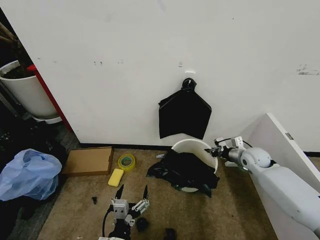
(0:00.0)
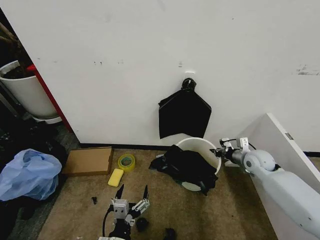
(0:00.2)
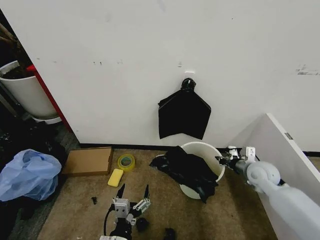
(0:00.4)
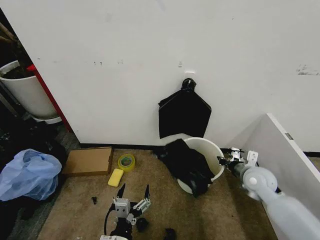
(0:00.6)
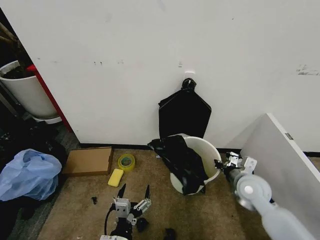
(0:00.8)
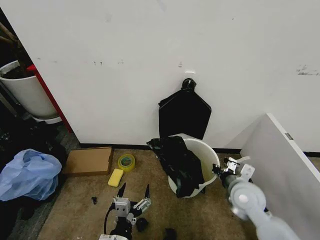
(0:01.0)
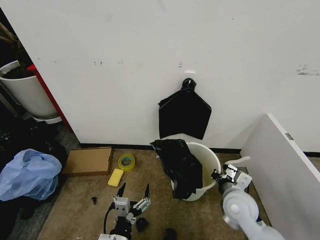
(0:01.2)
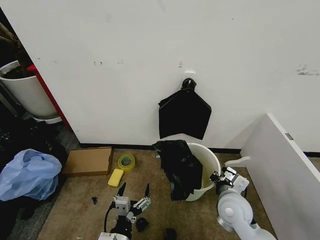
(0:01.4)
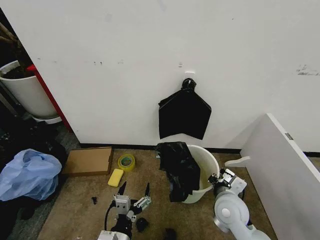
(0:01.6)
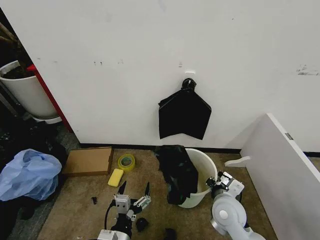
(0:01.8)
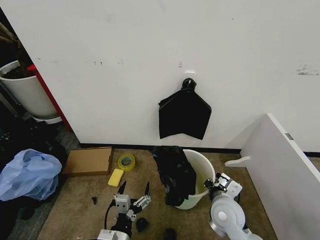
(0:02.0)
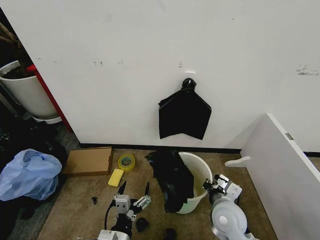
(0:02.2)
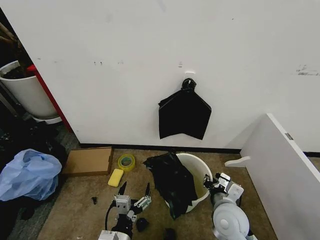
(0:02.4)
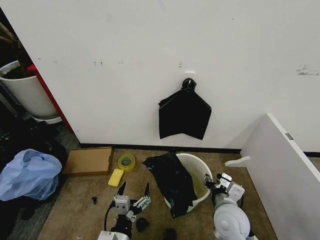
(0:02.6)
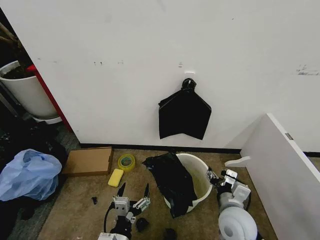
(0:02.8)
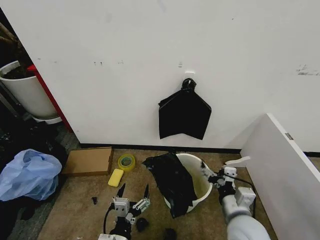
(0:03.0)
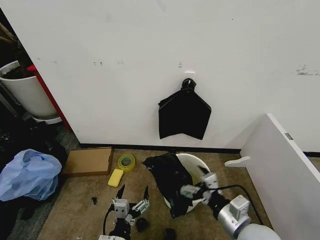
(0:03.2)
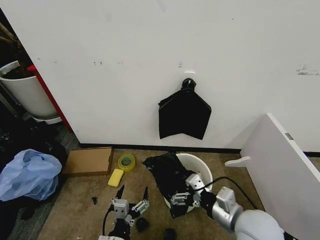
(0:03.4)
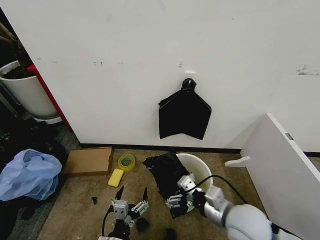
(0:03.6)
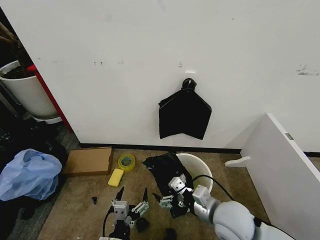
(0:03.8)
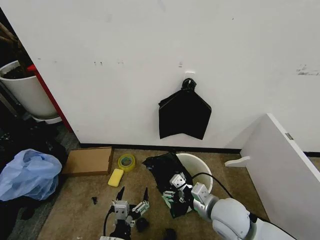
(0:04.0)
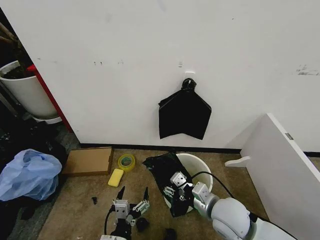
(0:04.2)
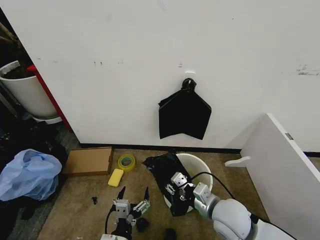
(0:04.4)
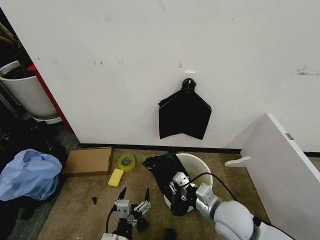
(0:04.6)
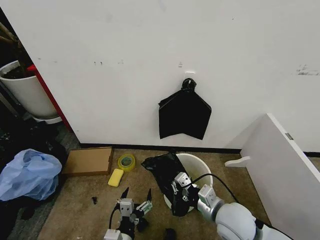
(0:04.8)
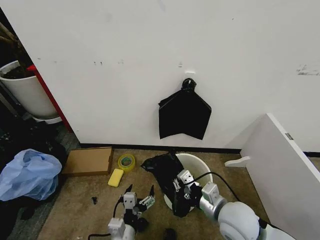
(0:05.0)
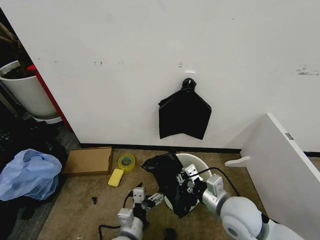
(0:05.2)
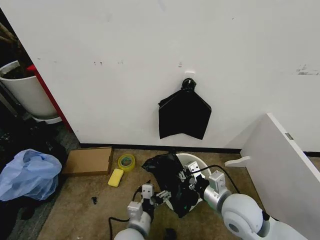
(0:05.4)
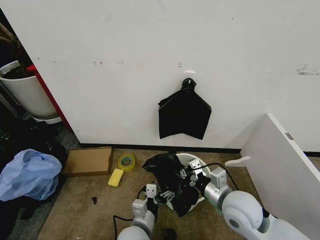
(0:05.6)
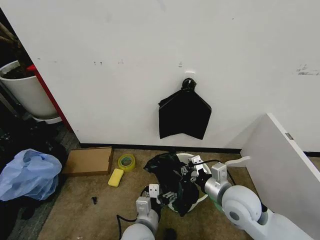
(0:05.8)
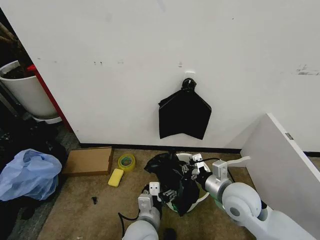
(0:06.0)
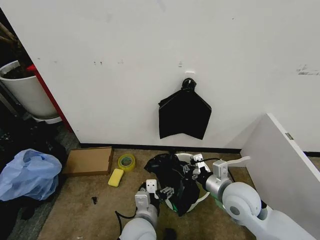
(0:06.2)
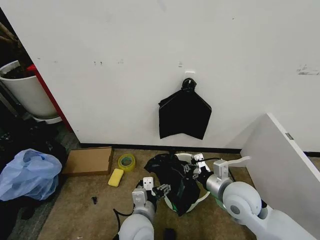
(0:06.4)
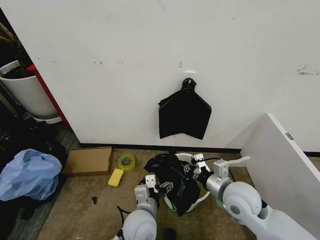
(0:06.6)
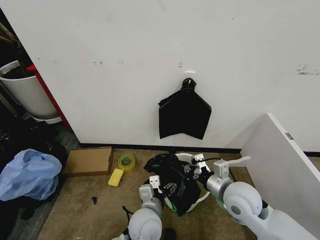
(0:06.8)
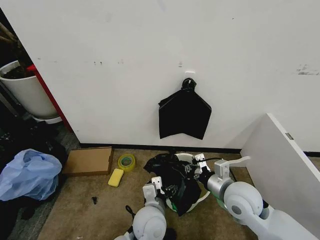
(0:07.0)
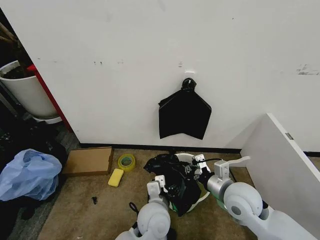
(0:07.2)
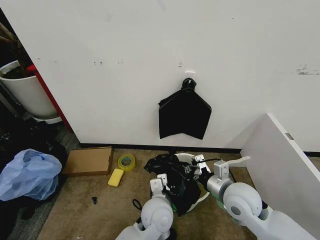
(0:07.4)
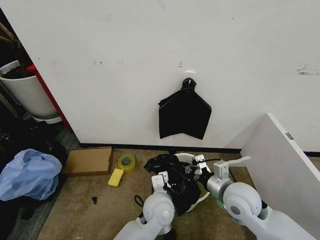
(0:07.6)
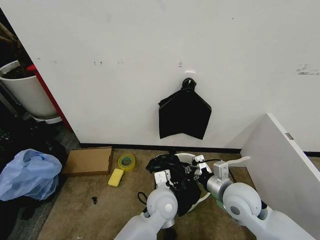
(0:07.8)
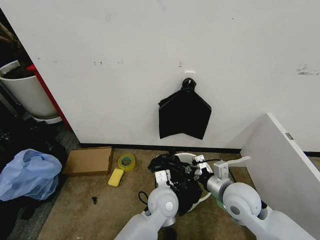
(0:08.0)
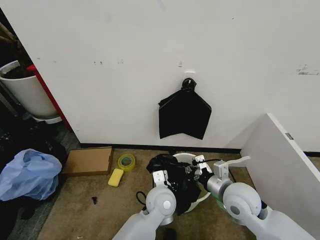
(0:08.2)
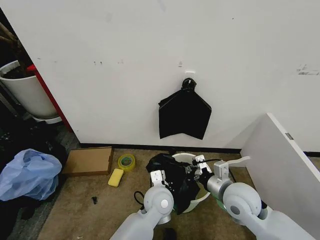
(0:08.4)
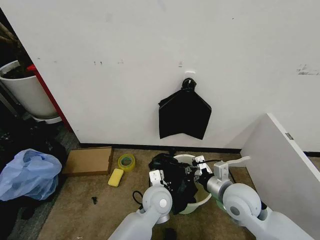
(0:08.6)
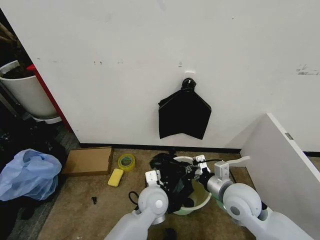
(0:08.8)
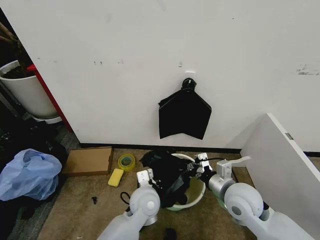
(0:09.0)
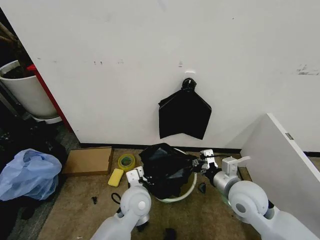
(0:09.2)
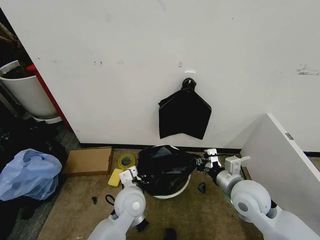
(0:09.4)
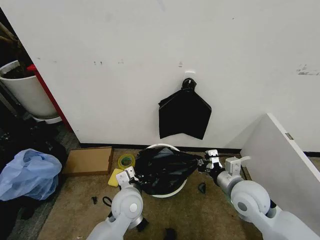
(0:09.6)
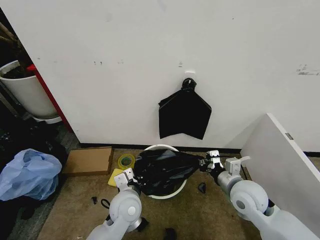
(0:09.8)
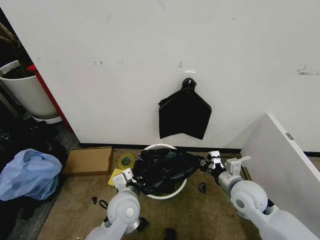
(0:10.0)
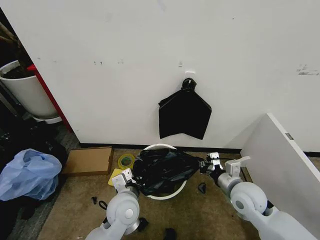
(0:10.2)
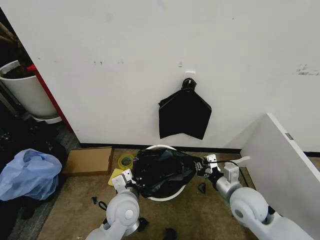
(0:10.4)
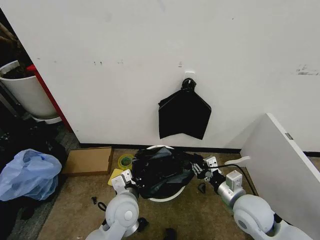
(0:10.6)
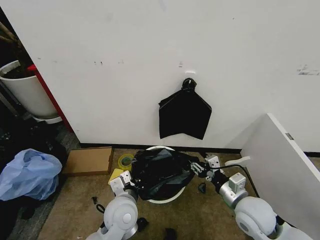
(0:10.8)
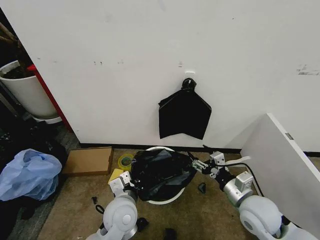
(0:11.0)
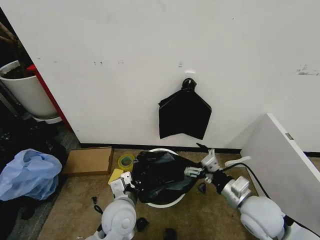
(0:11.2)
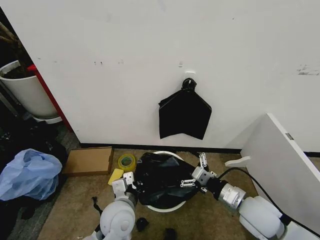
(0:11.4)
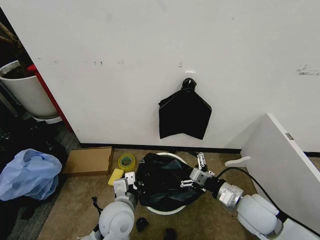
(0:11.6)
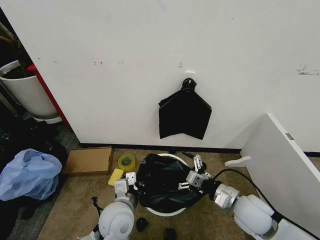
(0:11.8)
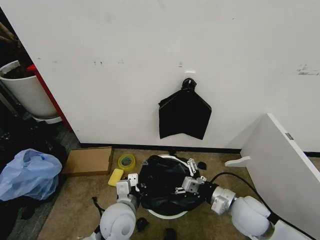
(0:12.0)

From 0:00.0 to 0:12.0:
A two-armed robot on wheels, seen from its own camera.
Task of the whole recording: Place the garbage bag over the trash bin.
From 0:00.0 to 0:01.6: The right gripper heads backward and to the left, covering approximately 25 cm.
From 0:01.6 to 0:03.0: The right gripper moves backward, approximately 5 cm, and opens.
From 0:03.0 to 0:04.4: The right gripper shifts by some 5 cm, and closes up.
From 0:04.4 to 0:06.0: The left gripper heads forward and to the right, covering about 10 cm. Meanwhile the right gripper shifts by about 5 cm.
From 0:06.0 to 0:07.6: The left gripper shifts roughly 10 cm forward and to the right.
From 0:07.6 to 0:09.0: The left gripper shifts by about 5 cm, and closes its fingers.
From 0:09.0 to 0:10.4: The left gripper goes about 5 cm to the left.
From 0:10.4 to 0:12.0: The right gripper opens its fingers.

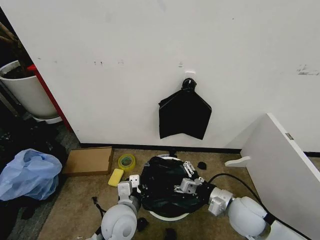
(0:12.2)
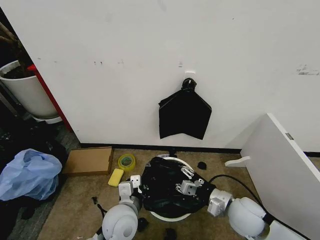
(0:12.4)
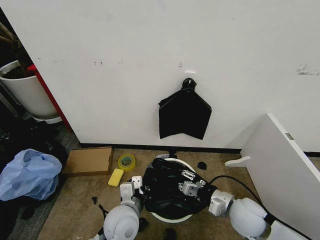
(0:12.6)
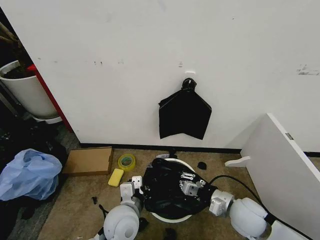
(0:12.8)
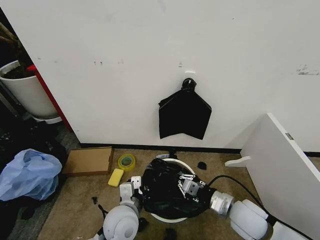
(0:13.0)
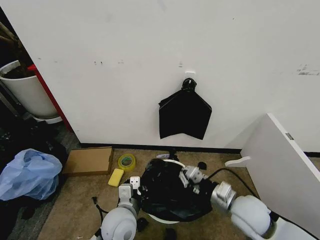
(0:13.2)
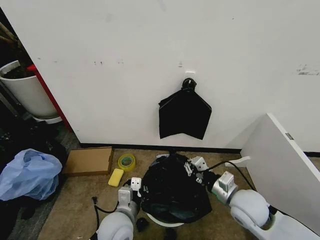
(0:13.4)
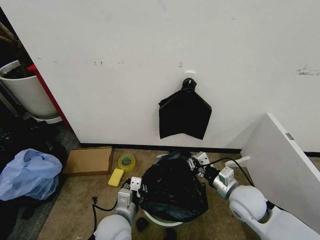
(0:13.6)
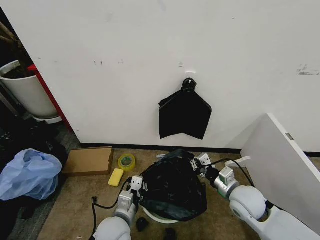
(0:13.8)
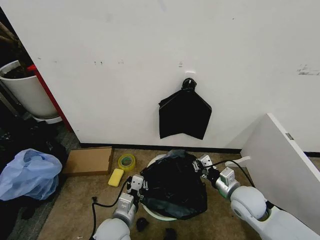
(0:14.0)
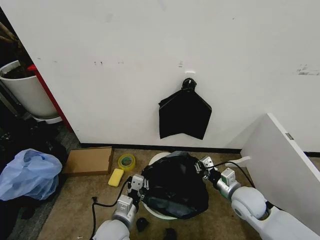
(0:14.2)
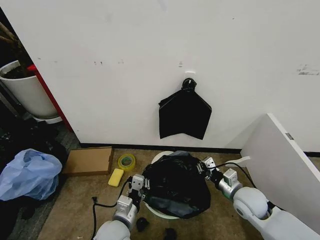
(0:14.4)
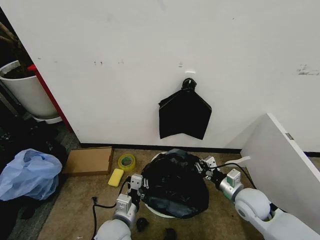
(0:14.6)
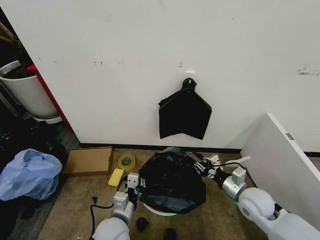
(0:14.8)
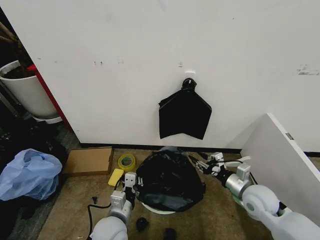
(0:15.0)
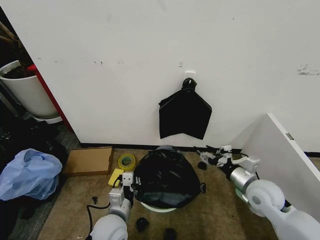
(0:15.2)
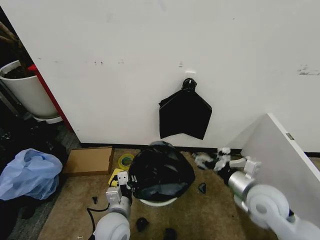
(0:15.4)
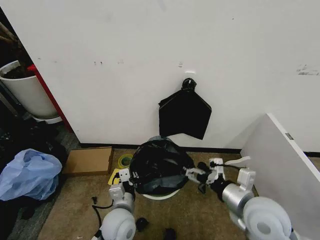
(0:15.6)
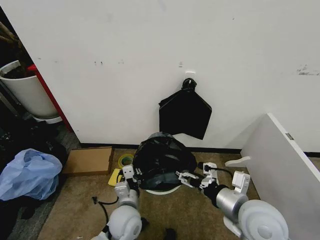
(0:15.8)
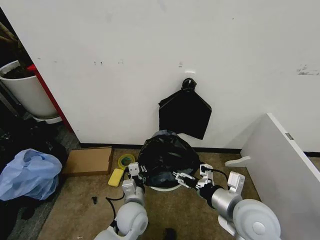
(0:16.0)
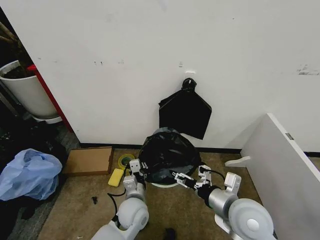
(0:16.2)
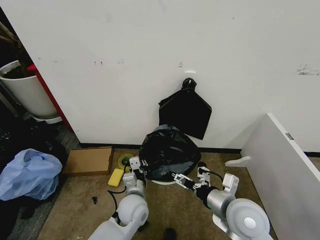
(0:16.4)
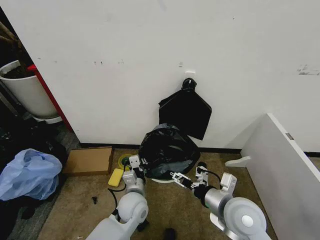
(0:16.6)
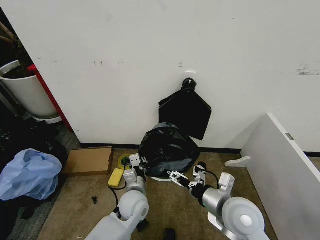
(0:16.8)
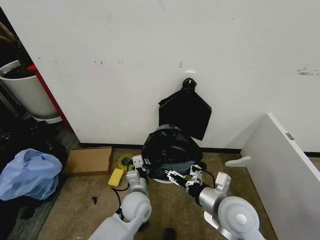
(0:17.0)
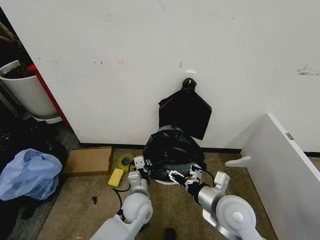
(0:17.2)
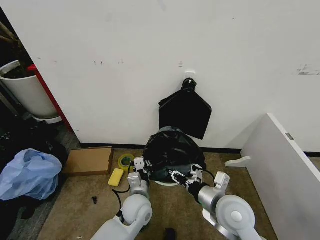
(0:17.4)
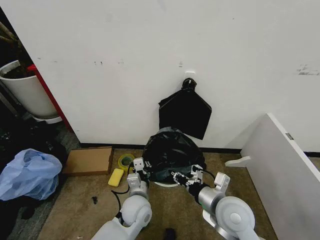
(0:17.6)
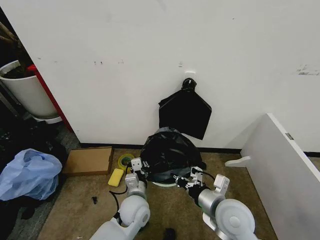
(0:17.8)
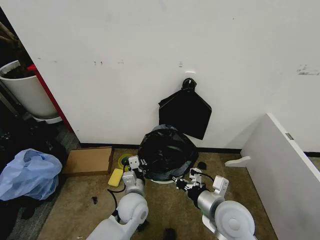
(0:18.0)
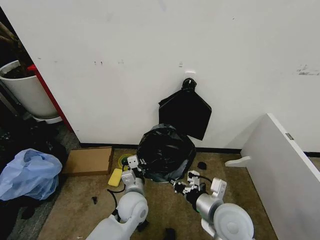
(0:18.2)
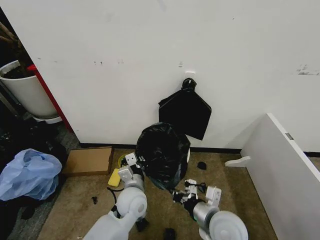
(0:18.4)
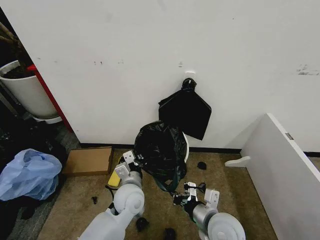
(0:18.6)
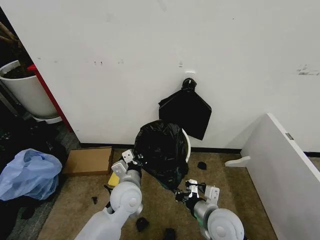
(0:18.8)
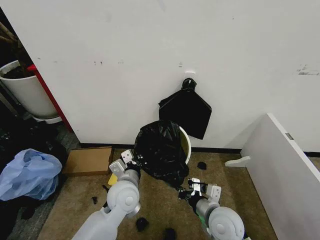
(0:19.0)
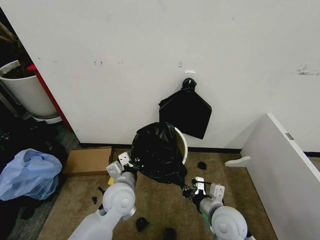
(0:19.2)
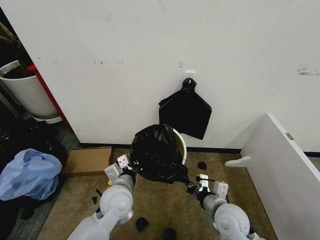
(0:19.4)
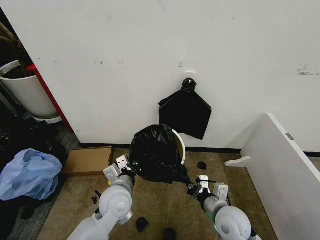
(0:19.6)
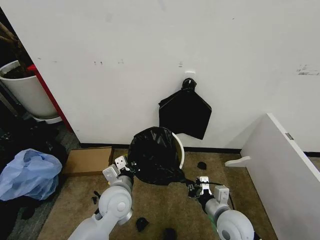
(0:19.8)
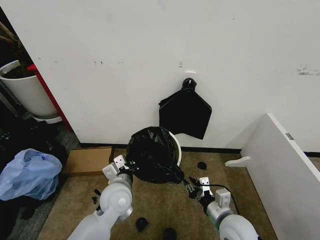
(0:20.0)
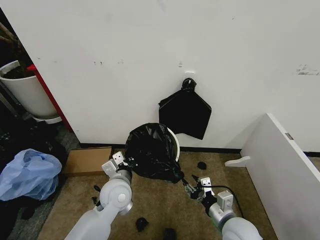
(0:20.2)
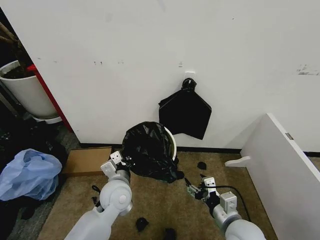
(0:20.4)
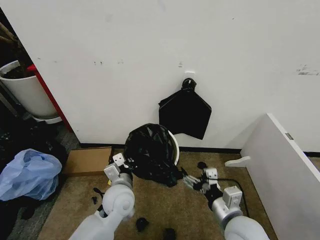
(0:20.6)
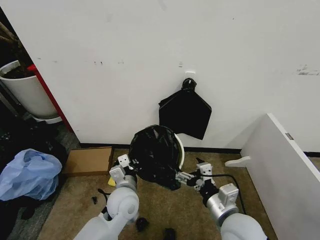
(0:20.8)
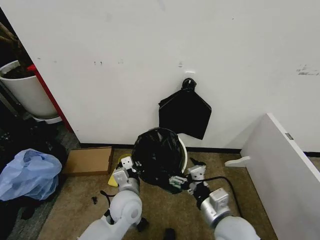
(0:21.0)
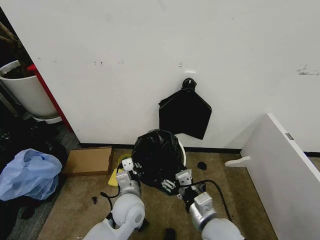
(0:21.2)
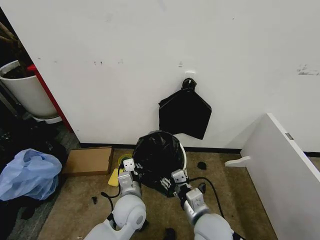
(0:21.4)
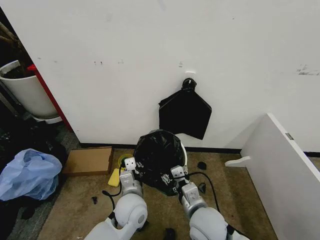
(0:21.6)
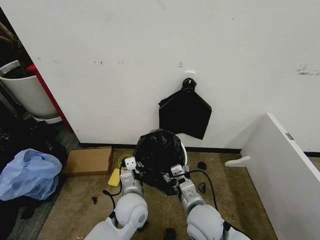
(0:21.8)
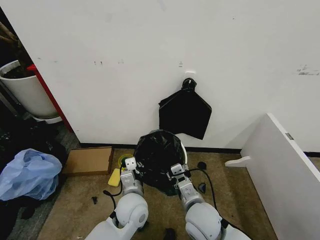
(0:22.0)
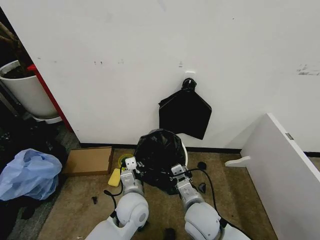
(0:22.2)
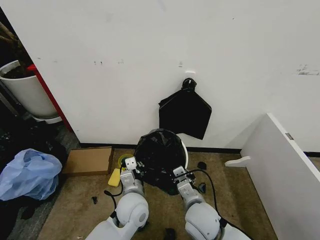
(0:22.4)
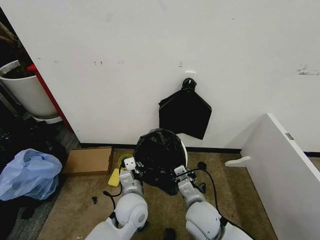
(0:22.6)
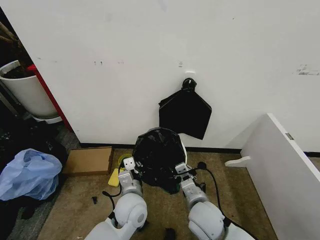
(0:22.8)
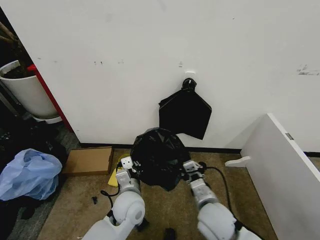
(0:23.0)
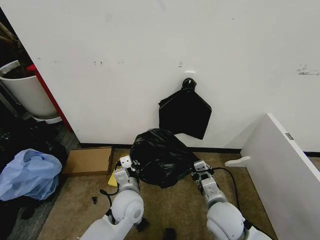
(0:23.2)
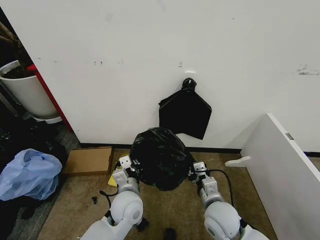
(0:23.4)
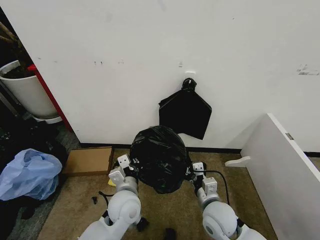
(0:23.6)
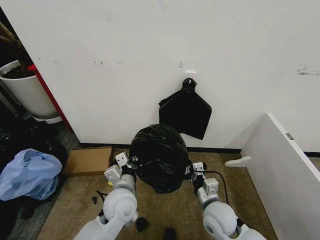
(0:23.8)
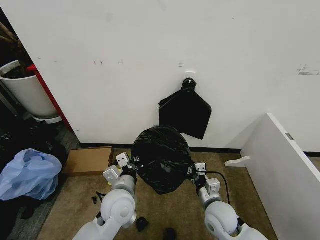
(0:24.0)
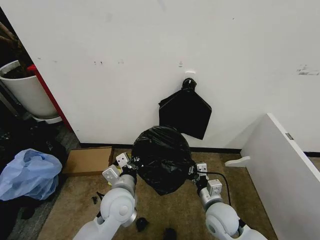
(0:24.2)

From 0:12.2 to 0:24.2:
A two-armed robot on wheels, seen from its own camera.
Task of the whole recording: Place the garbage bag over the trash bin.
From 0:12.2 to 0:13.8: The right gripper closes.
From 0:13.8 to 0:15.2: The right gripper shifts roughly 5 cm to the right, and opens.
From 0:15.2 to 0:16.6: The right gripper moves to the left, backward and upward, approximately 15 cm. Meanwhile the left gripper shifts some 10 cm forward and to the right.
From 0:16.6 to 0:18.2: The right gripper closes up.
From 0:18.2 to 0:19.8: The right gripper travels downward by about 5 cm, while the left gripper heads upward, covering roughly 5 cm.
From 0:19.8 to 0:21.2: The right gripper is displaced to the left by roughly 5 cm, and opens; the left gripper ends up about 5 cm from where it was.
From 0:21.2 to 0:22.6: The right gripper moves forward, approximately 5 cm, and closes up.
From 0:22.6 to 0:24.2: The right gripper is displaced to the right by about 5 cm, while the left gripper shifts by roughly 5 cm.
